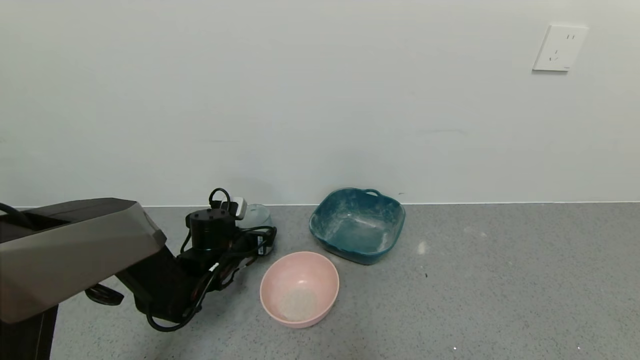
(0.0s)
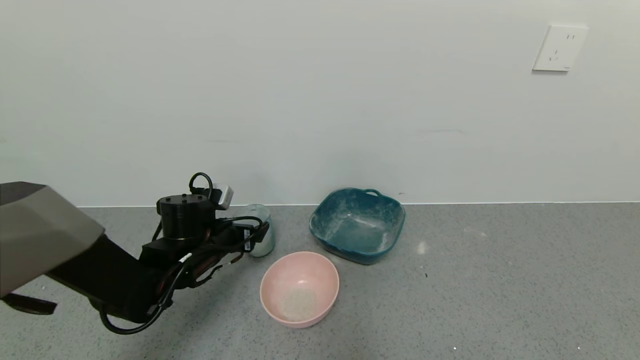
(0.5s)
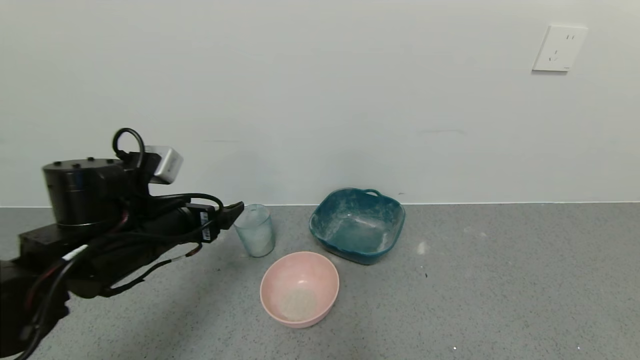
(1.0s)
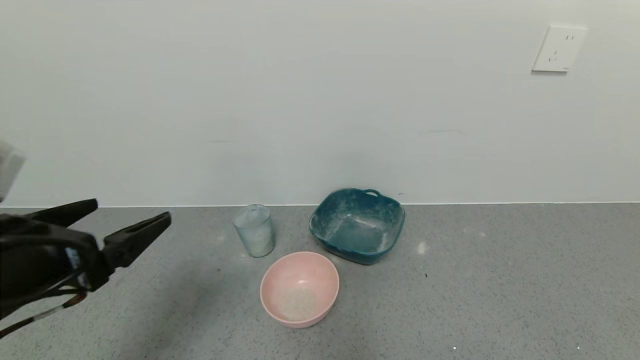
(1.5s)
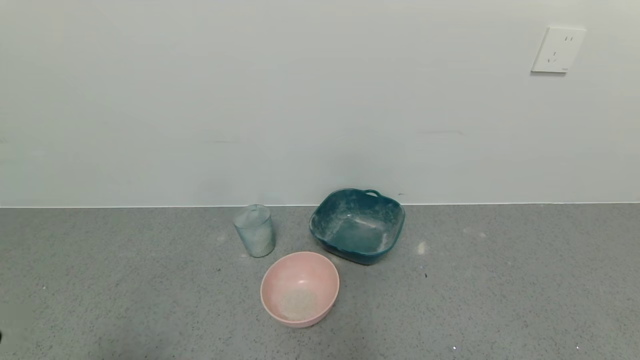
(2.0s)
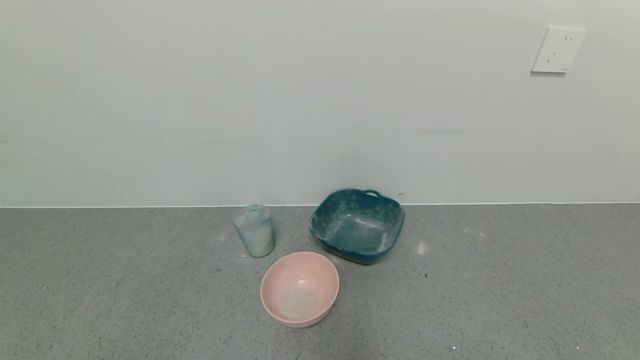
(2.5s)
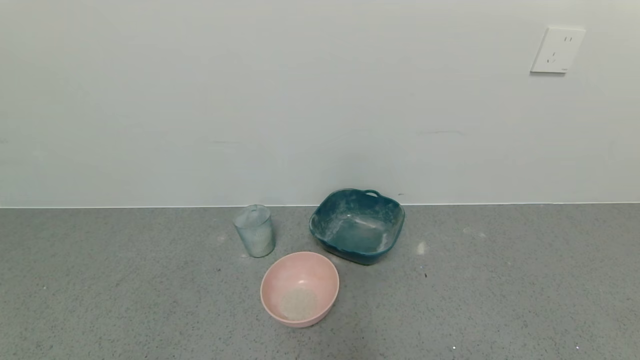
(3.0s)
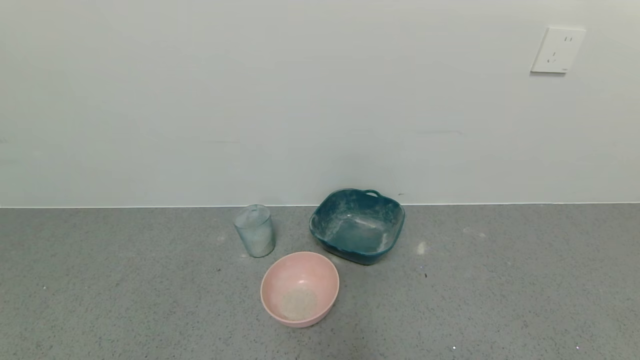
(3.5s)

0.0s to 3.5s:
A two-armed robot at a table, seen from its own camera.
Task of the whole recording: use a gripper to pick up the cup and pour the powder into a bowl or tray.
0.0s to 2.0s: The left gripper is displaced backward and upward by about 40 cm.
